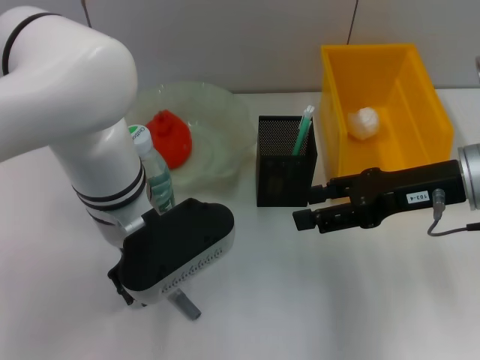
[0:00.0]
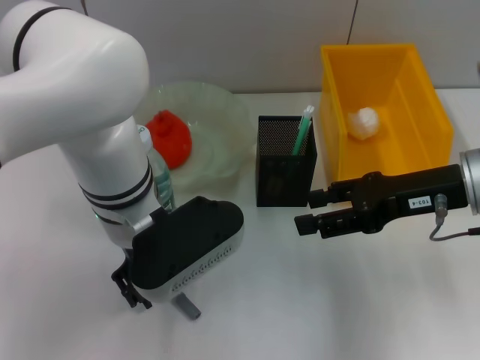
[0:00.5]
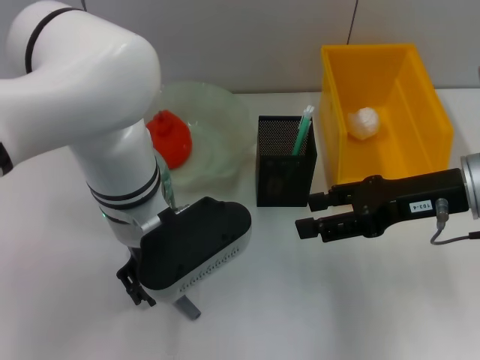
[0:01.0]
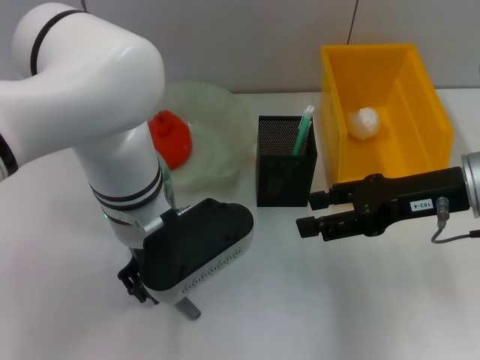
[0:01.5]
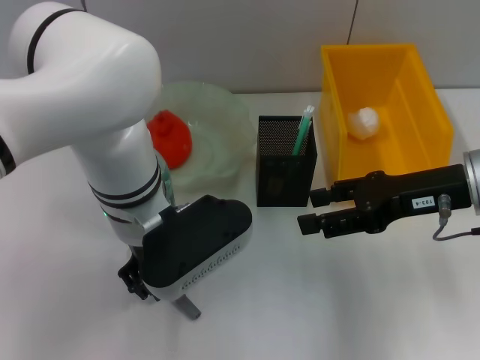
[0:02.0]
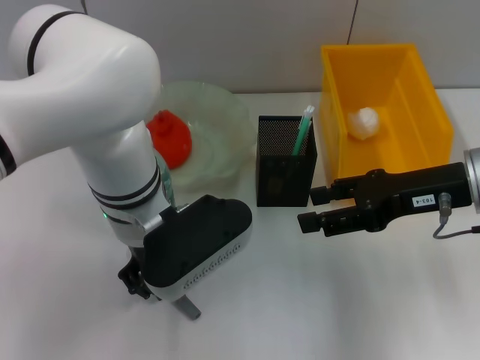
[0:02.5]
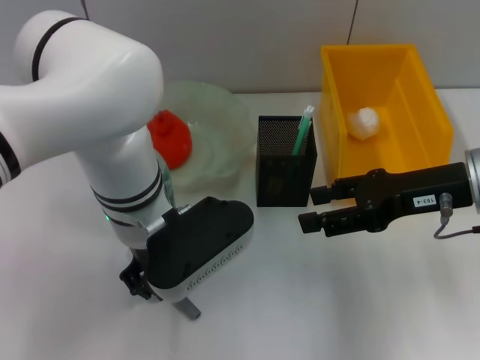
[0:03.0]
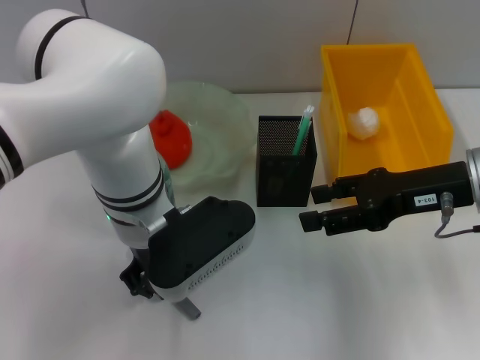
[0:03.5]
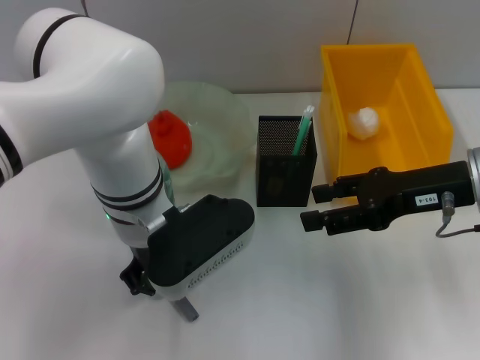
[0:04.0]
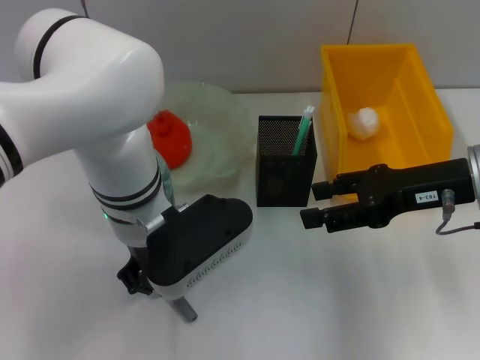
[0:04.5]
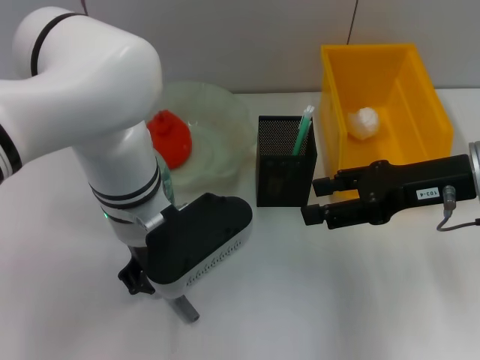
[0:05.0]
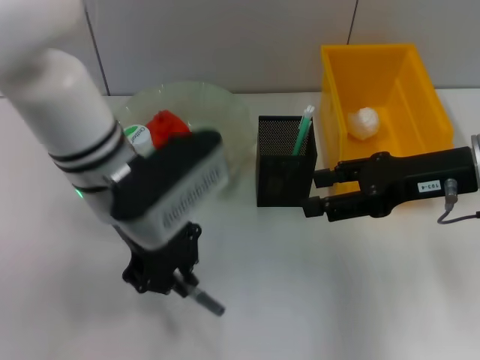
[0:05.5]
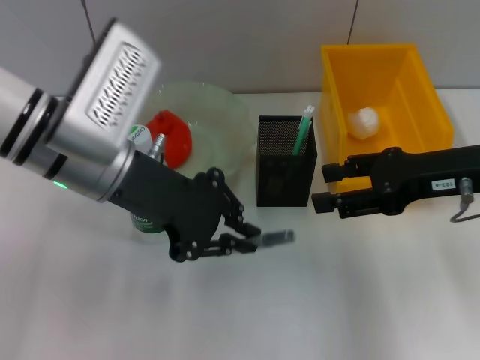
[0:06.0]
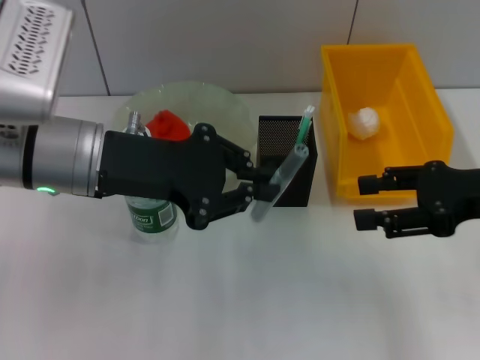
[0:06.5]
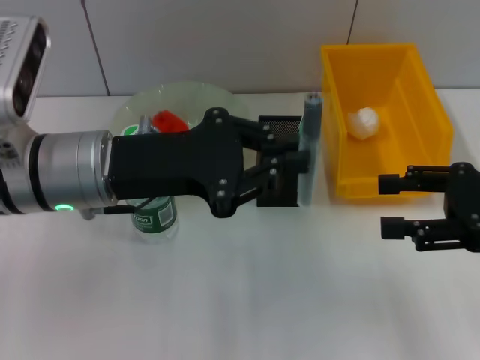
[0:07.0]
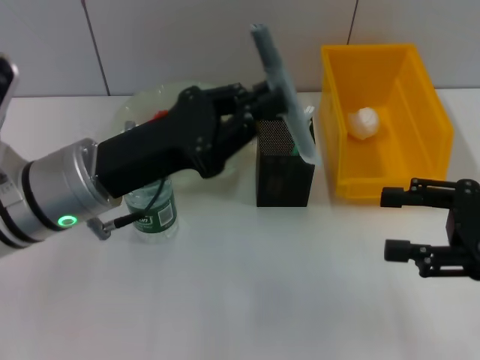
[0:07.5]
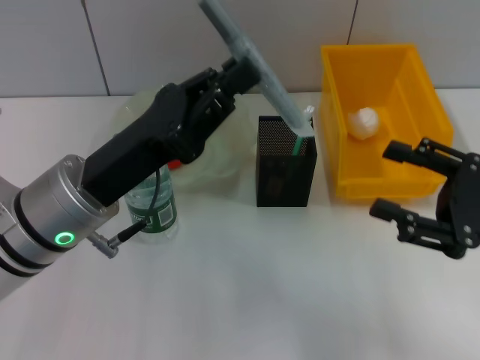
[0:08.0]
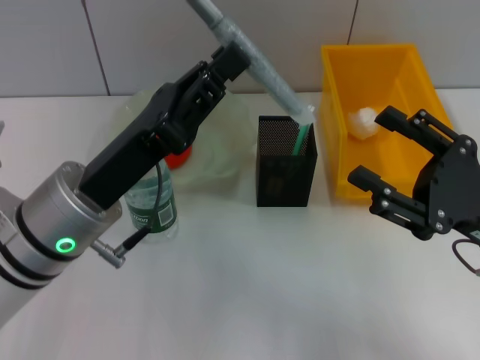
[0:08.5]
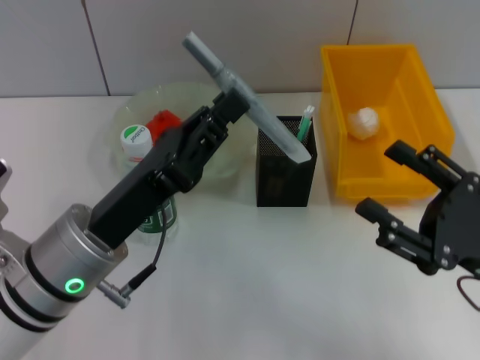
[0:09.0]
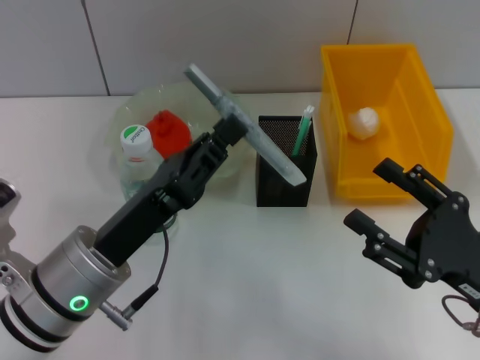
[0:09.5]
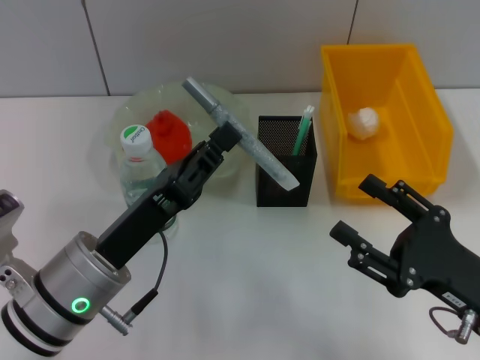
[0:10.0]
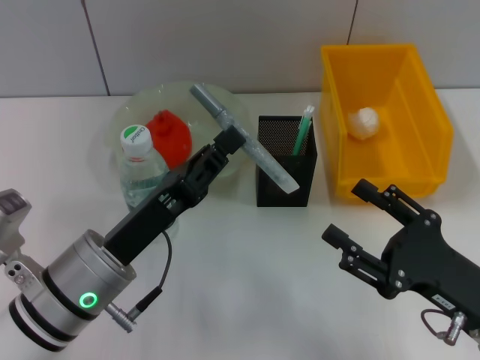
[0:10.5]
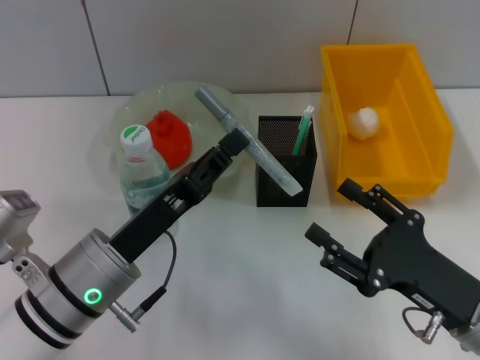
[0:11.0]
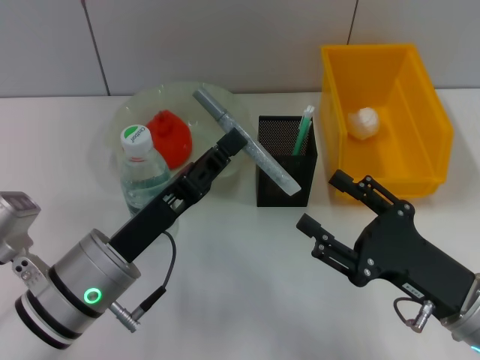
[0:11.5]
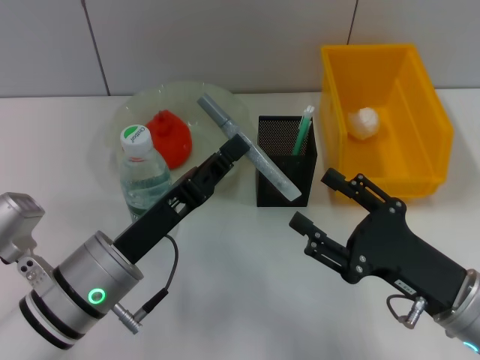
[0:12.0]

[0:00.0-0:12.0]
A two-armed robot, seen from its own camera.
Step, 0:00.0 to 0:03.5: Grab the gray glue with the left hand.
0:00.0 to 0:02.0: Both grippers stay put.
0:02.0 to 0:04.0: Both grippers stay about where they are.
0:04.0 to 0:06.0: The left gripper goes some 10 cm to the left and upward.
0:06.0 to 0:08.0: The right gripper shifts about 10 cm backward. The left gripper is displaced downward and backward by some 10 cm.
0:08.0 to 0:10.0: The two grippers go roughly 5 cm downward.
0:10.0 to 0:12.0: The grippers make only small movements.

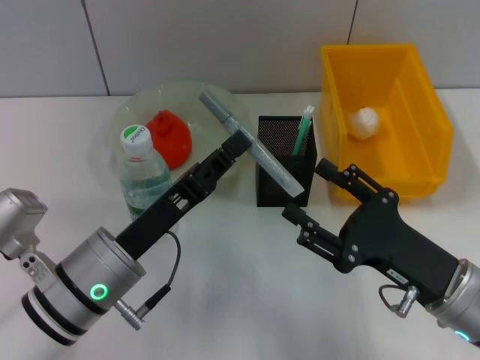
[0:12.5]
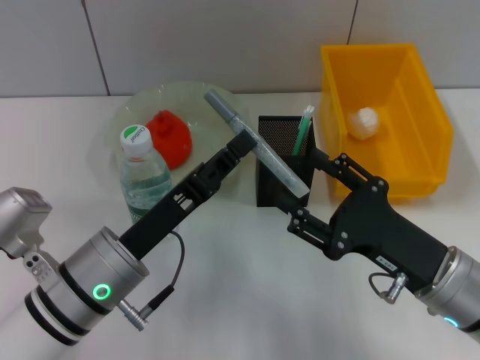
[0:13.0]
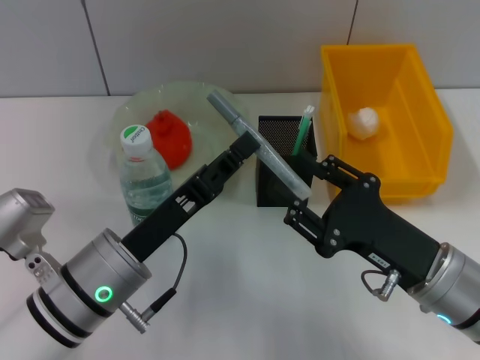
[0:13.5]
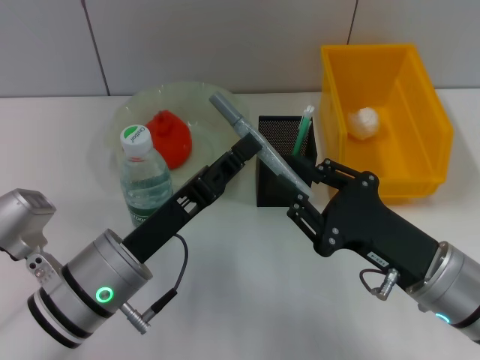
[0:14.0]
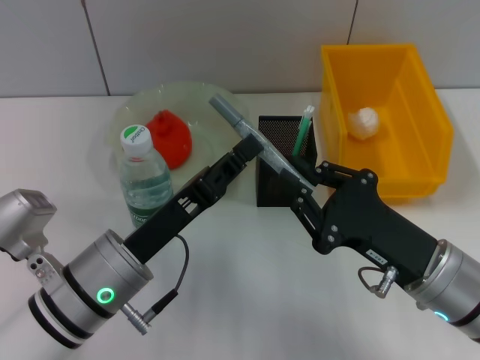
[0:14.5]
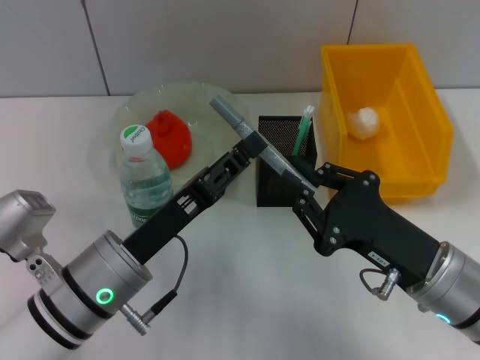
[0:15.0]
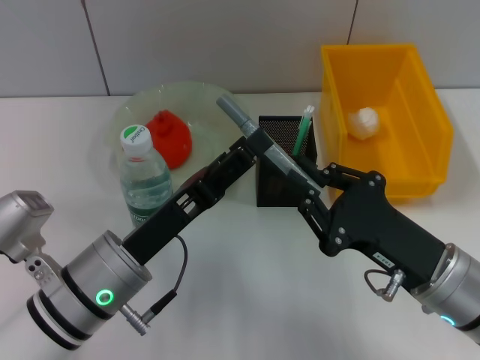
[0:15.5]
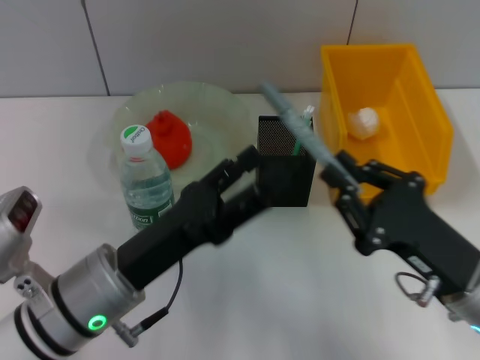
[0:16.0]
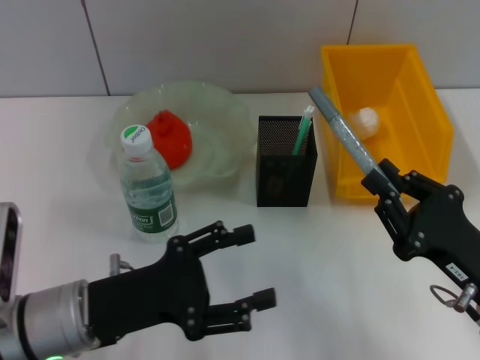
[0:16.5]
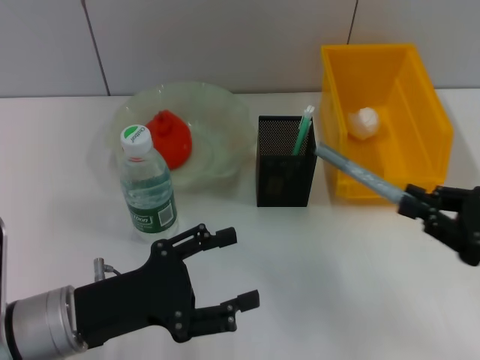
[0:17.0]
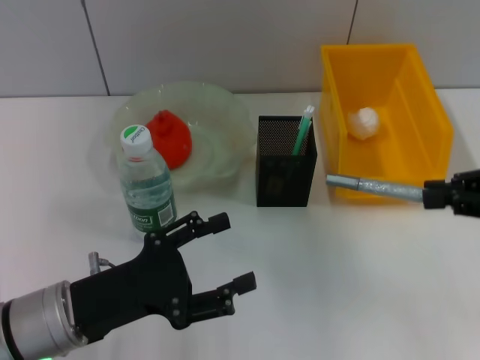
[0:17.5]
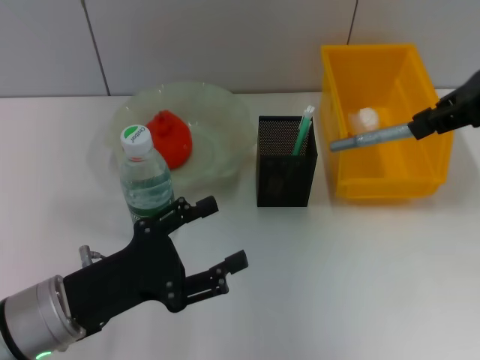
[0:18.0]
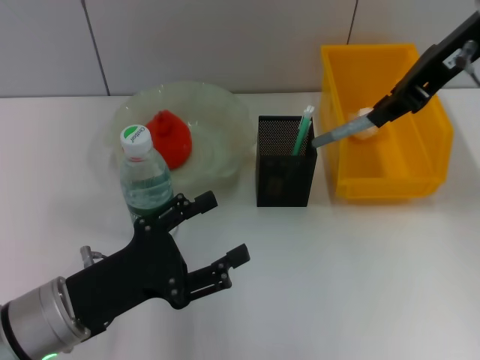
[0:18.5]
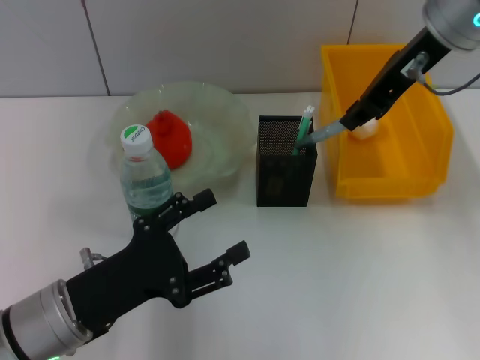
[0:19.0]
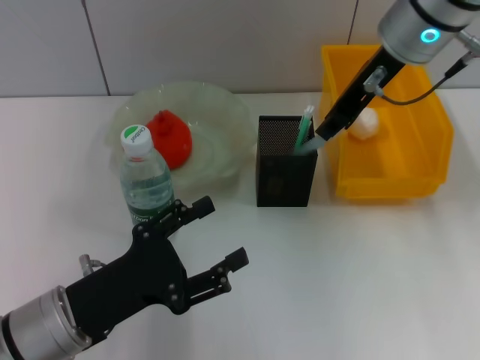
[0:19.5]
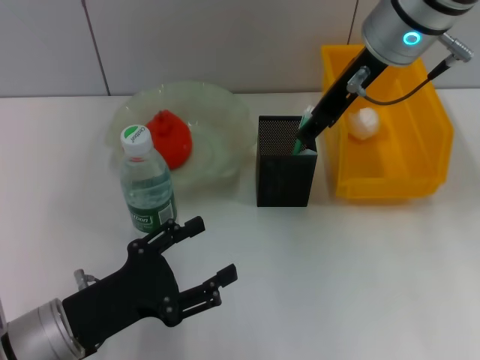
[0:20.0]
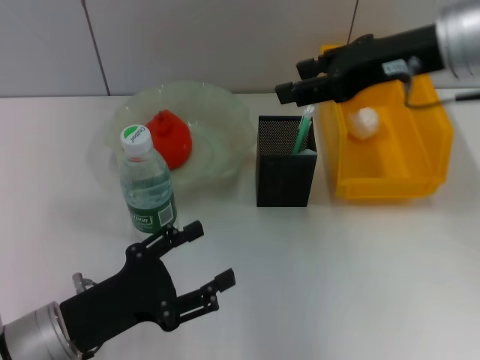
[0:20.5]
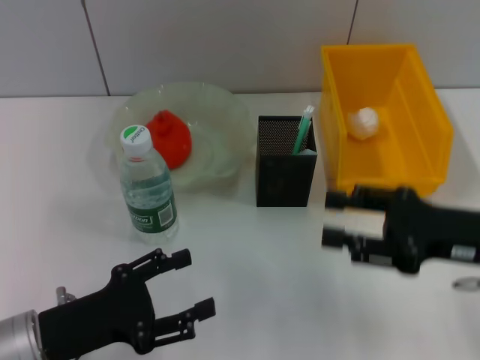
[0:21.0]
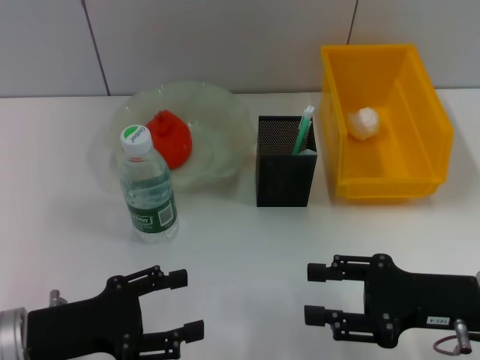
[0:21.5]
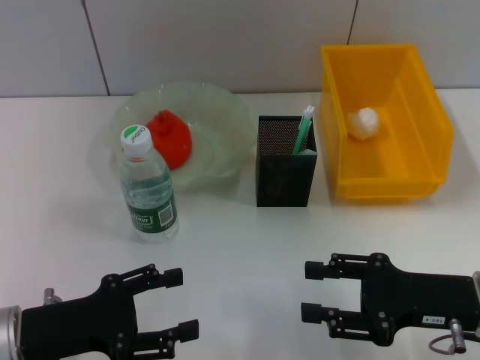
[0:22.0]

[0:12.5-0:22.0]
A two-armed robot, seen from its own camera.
Step, 0:12.5 to 0:15.5: Pass the gray glue from the right hand to the left hand.
Step, 0:16.0 to 0:20.0: Place the gray glue into the pen holder with the right hand.
0:12.5 to 0:14.5: The right gripper closes its fingers.
0:14.5 to 0:16.5: The left gripper moves to the left, roughly 5 cm, and opens. The right gripper goes approximately 5 cm to the right.
0:16.5 to 0:18.0: The right gripper heads upward and forward, covering some 30 cm.
0:18.0 to 0:20.0: The right gripper travels to the left by roughly 15 cm, and opens its fingers.
0:20.0 to 0:22.0: The left gripper changes place by some 5 cm. The right gripper heads downward, backward and to the right, covering roughly 30 cm.
